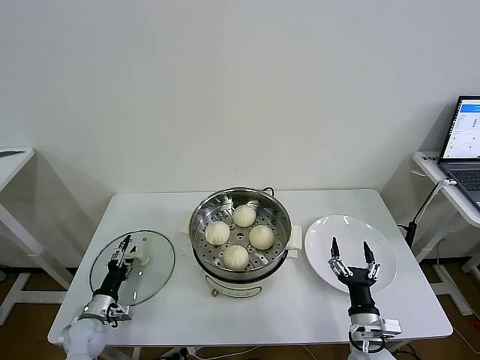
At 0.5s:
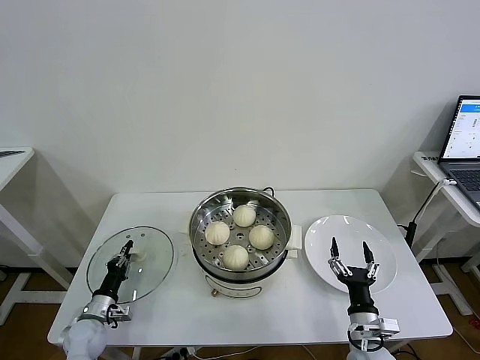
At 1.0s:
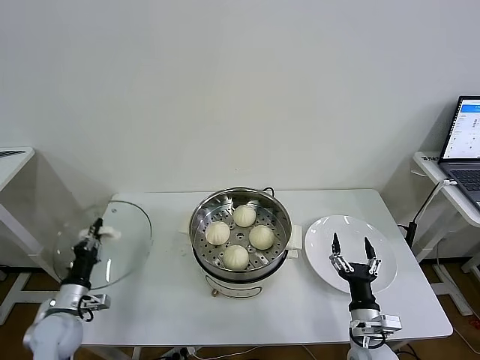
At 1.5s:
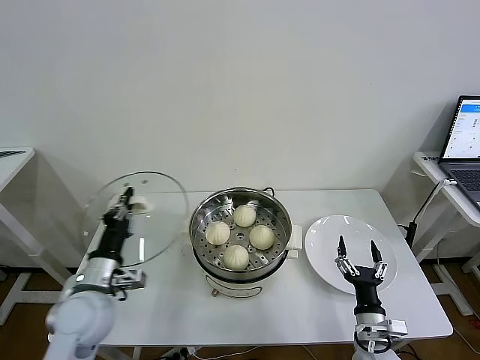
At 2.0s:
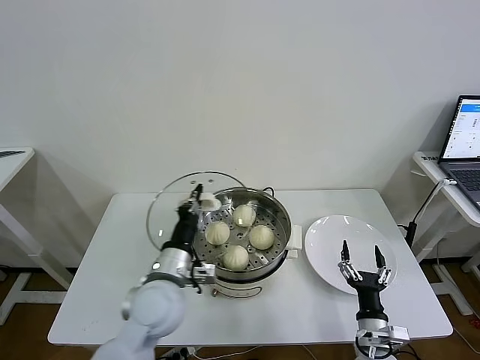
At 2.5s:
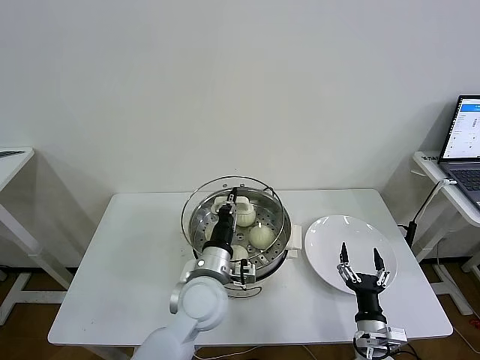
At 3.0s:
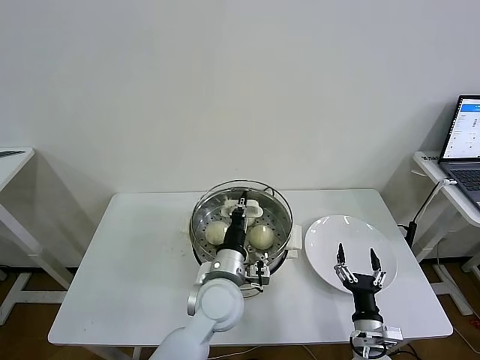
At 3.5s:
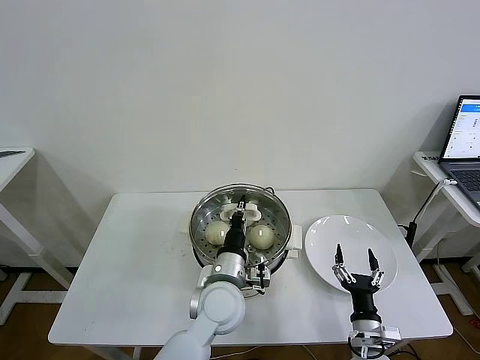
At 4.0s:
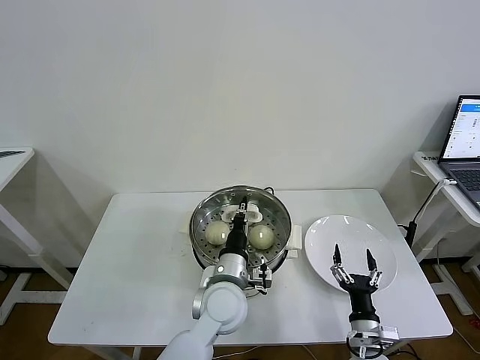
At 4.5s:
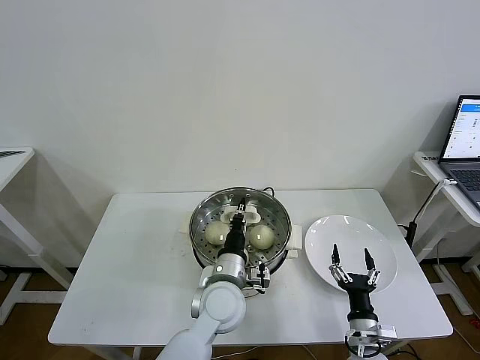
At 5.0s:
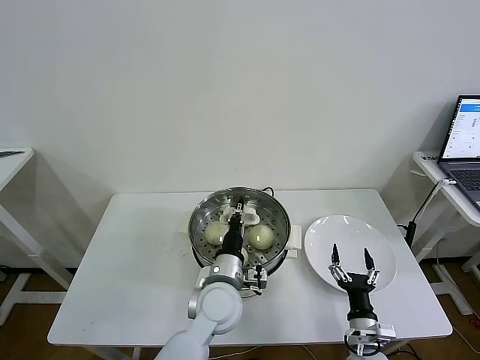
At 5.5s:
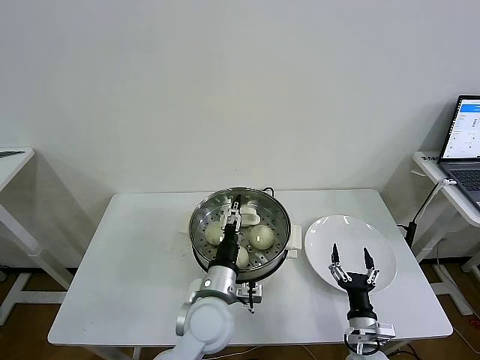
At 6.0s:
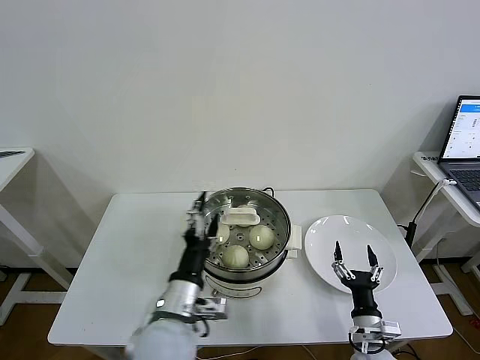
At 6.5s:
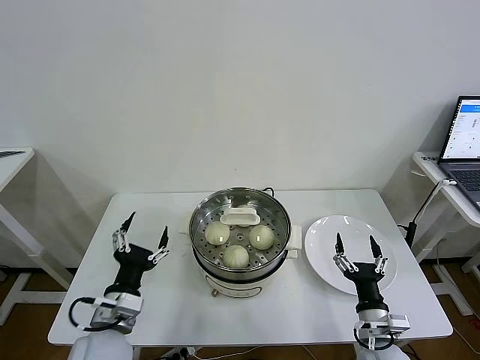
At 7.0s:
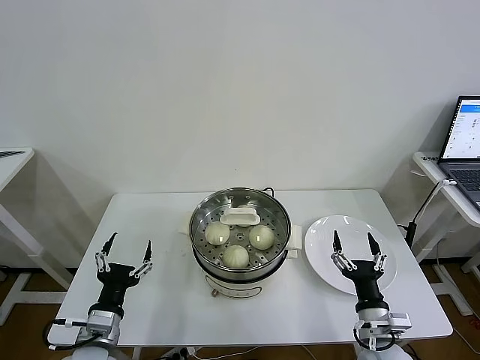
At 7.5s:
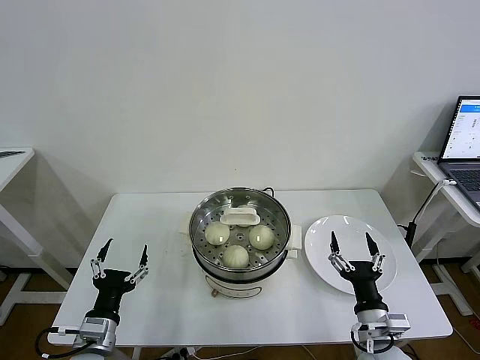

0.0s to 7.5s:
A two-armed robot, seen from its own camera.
Task of the whole recording: take steamed baozi put them in steamer then cover it.
Step, 1.0s to 5.5s: Place the pot lid on the steamer with left gripper.
0.0s to 2.0s: The left gripper is displaced upward and to the right by approximately 35 cm, and closes up.
2.0s to 4.0s: The left gripper moves to the right and downward, about 15 cm.
4.0s to 5.5s: The left gripper opens.
5.5s to 7.5s: The left gripper shifts some 25 cm to the left and backward. The right gripper goes roughly 10 cm upward.
